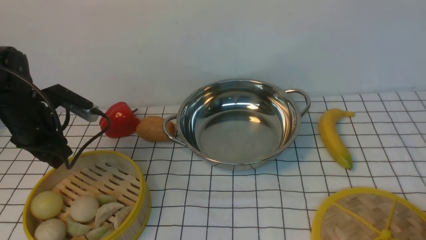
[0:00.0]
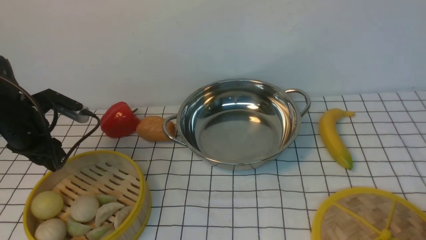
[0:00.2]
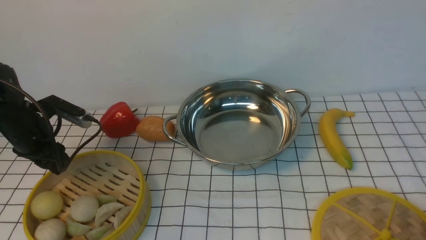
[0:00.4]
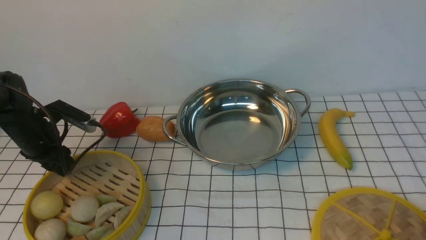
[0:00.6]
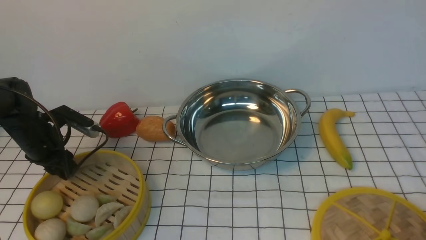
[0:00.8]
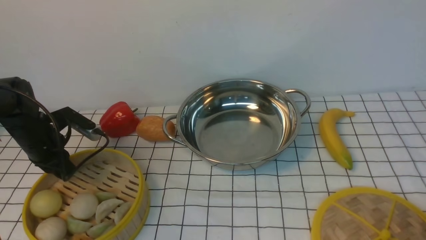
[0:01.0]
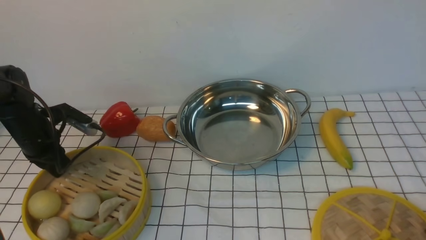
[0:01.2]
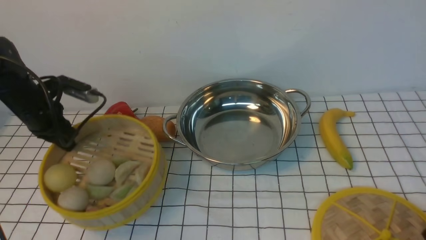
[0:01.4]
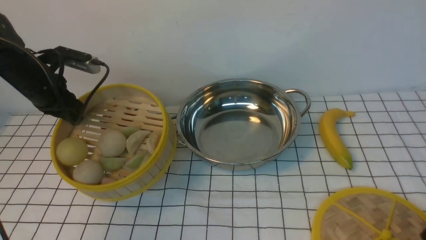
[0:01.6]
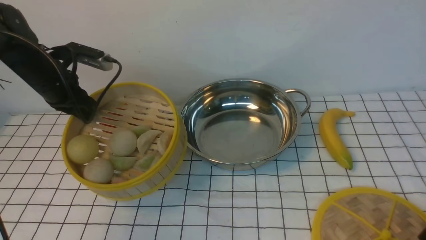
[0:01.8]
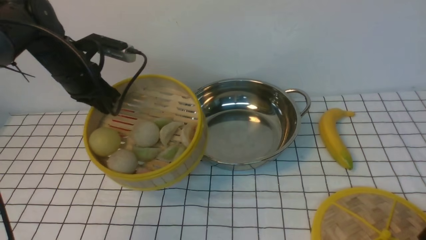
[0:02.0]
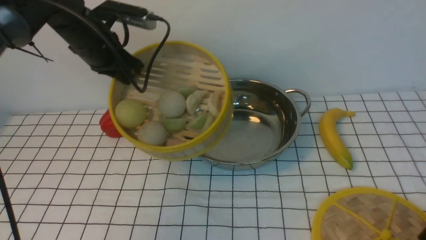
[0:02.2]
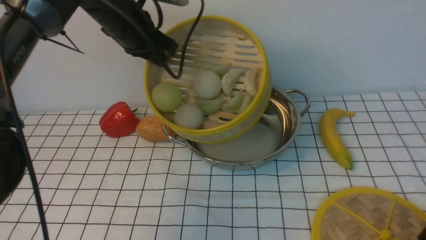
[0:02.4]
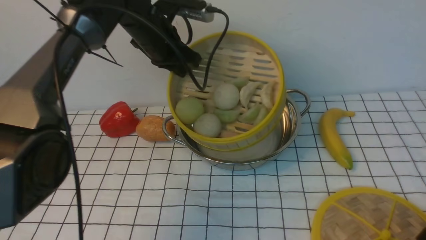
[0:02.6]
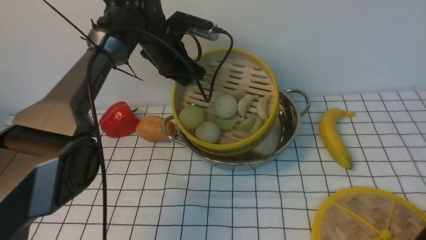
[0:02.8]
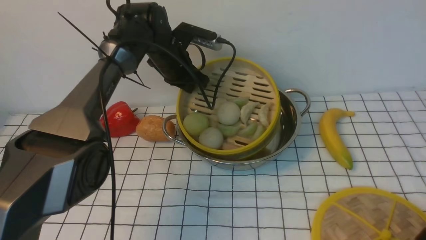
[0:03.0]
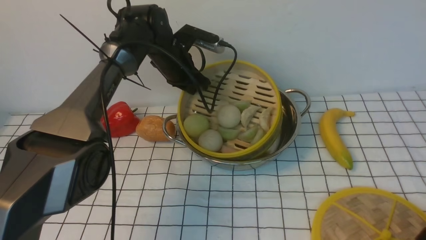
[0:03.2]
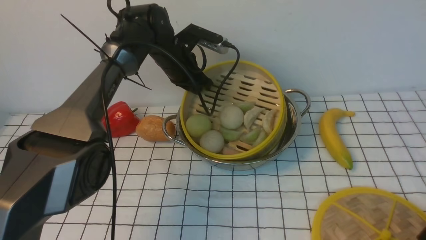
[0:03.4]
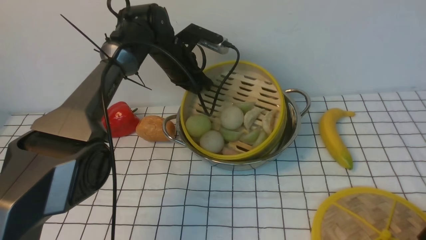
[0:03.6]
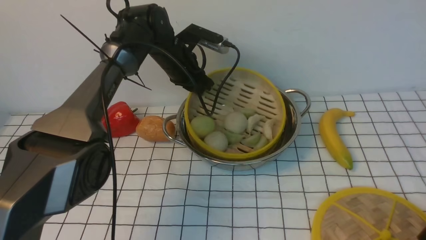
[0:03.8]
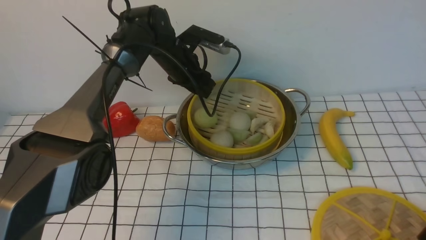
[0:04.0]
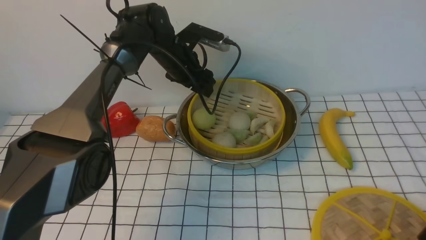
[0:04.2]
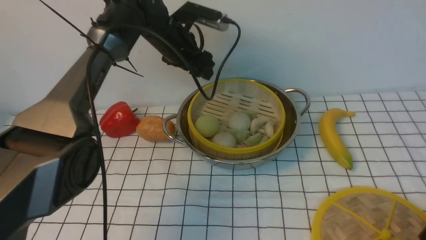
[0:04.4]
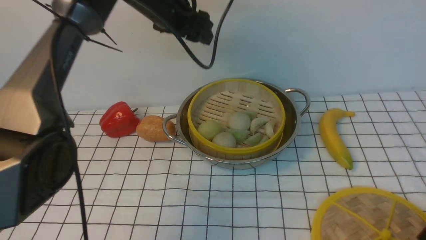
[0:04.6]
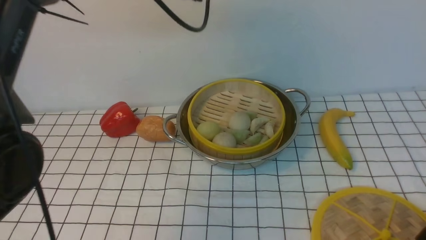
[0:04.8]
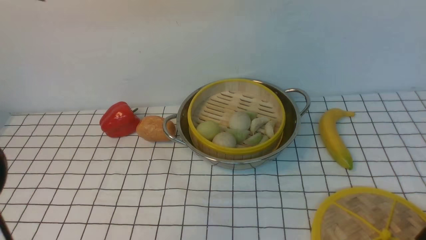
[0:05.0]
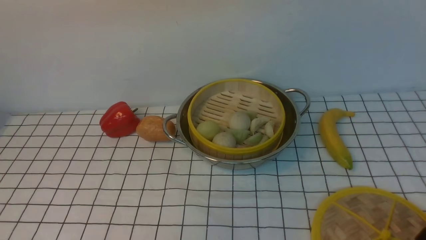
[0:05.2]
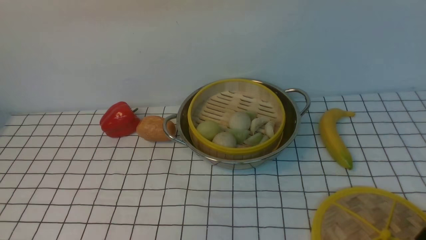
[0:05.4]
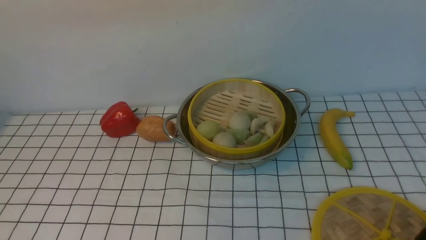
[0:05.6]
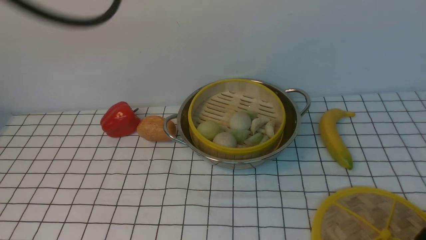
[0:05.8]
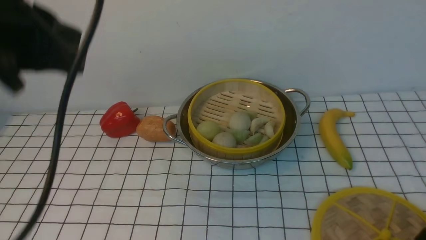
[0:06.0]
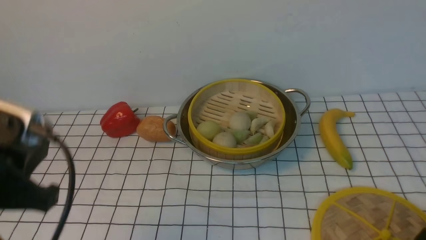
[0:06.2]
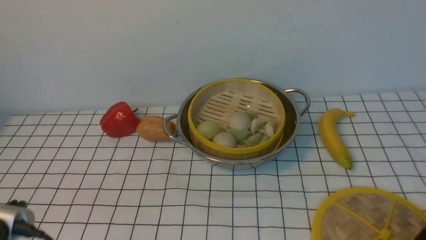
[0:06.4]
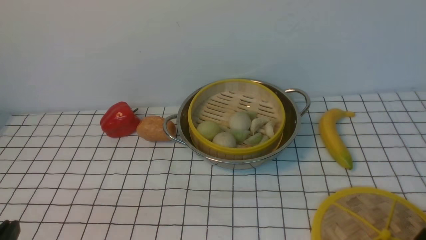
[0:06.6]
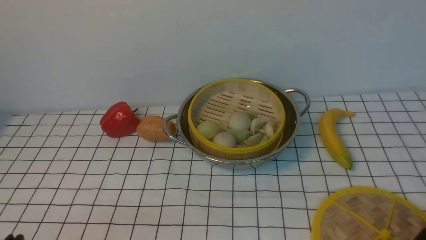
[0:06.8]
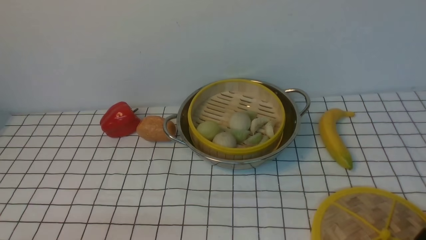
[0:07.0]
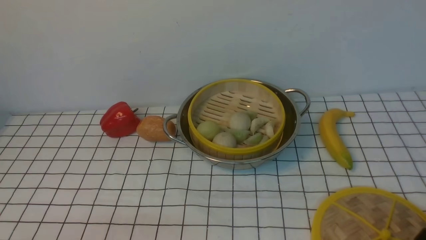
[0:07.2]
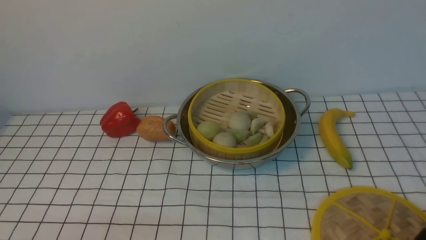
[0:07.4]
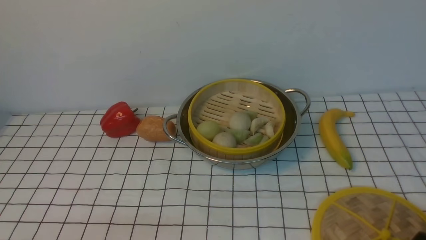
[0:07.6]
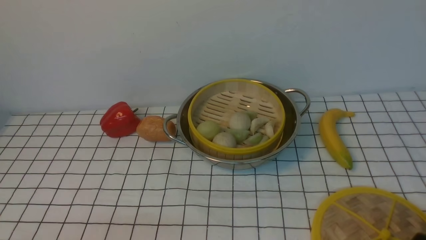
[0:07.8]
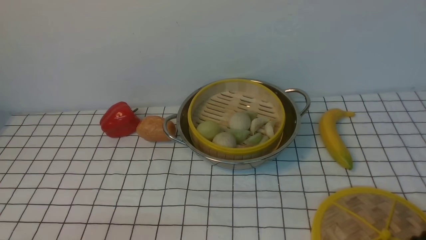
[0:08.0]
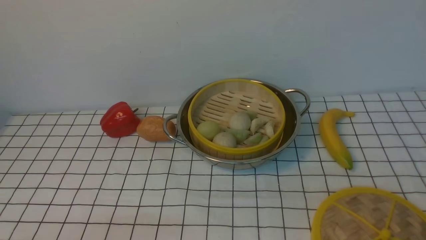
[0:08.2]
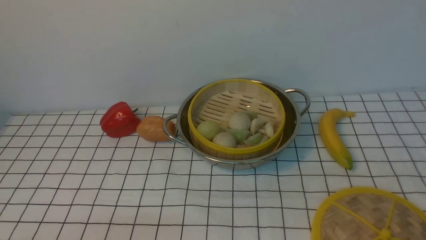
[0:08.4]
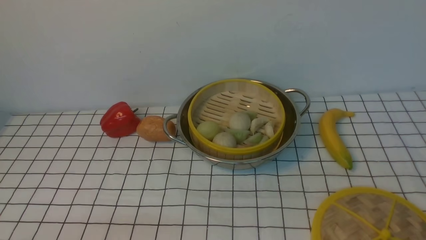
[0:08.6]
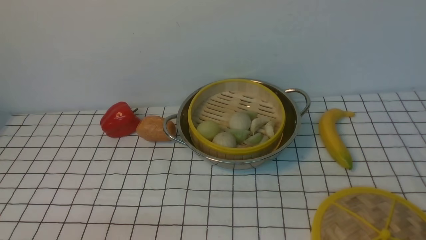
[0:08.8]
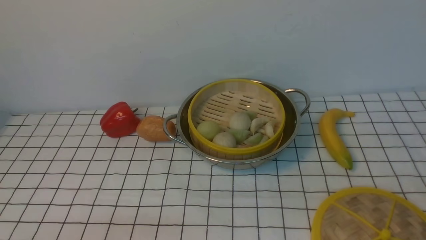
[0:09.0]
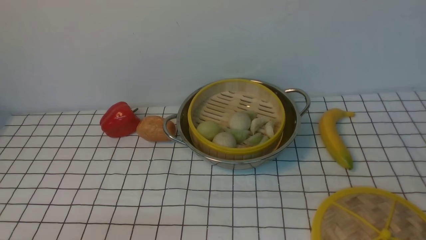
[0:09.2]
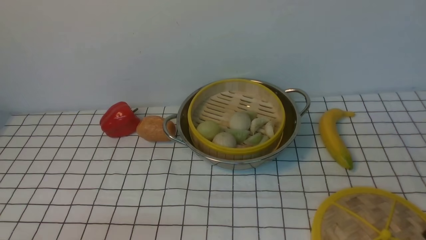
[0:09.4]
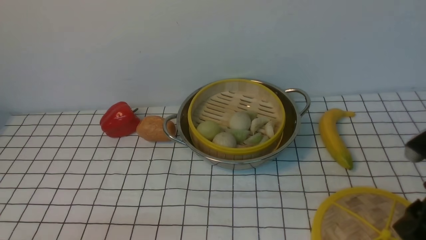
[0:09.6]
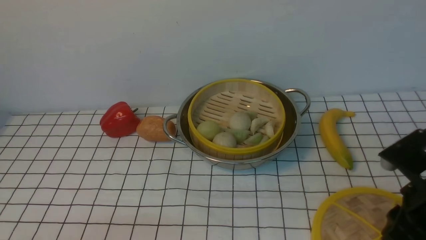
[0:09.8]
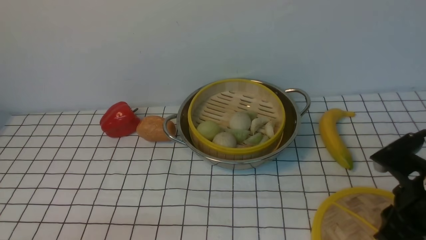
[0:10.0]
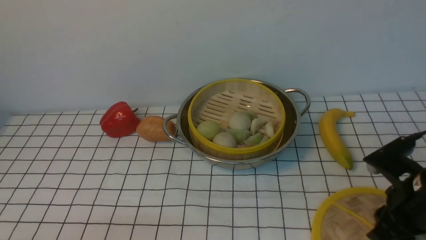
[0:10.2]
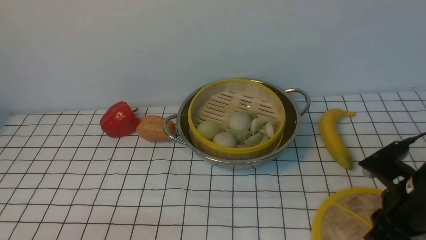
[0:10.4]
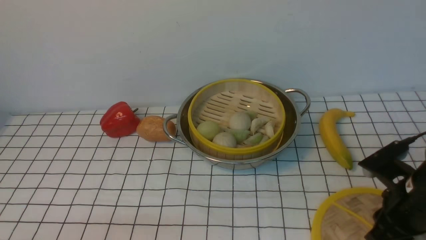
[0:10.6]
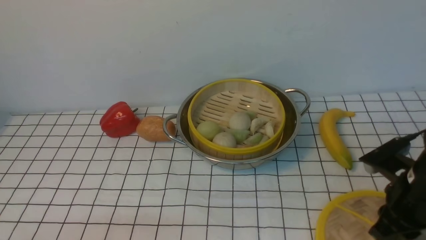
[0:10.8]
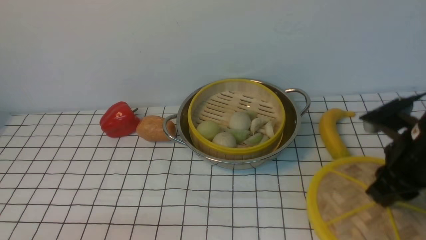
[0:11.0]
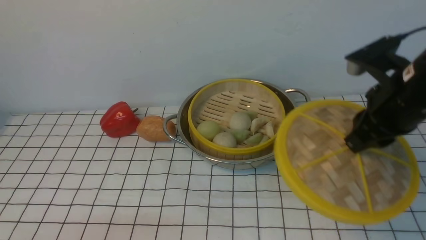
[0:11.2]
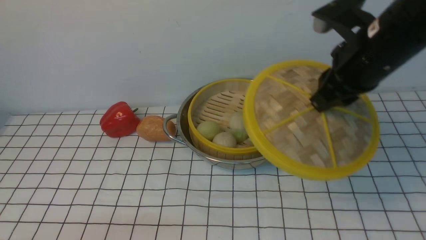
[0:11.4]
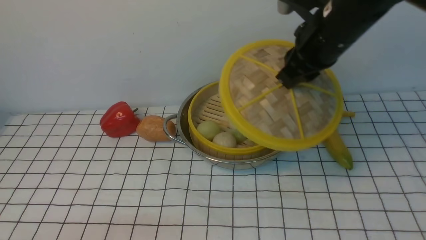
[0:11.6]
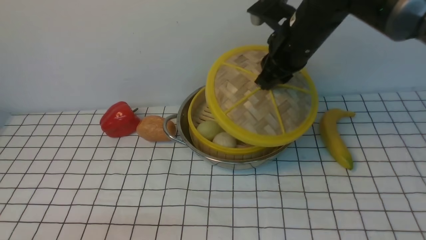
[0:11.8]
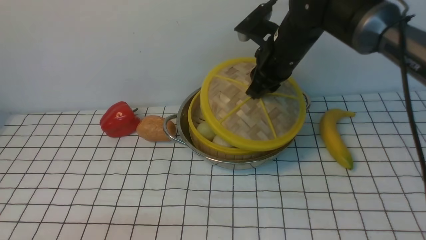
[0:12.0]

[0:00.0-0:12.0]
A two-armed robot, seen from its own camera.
Task of the whole recording: place the steamer in the pot on the white tablecloth, and put the lid on the steamer.
Step, 0:01.4 to 0:04.2: use the left arm to put the steamer into the iron steamer pot in the middle.
Step, 0:04.4 to 0:10.8: use the right arm to lift the lid of the steamer.
0:00.0 to 0:01.6: The left gripper moves forward, roughly 5 cm, reaches some 5 cm downward, then returns, and closes up.
0:01.6 to 0:03.0: The left gripper is displaced to the right and forward by some 25 cm.
0:03.0 to 0:04.4: The left gripper shifts approximately 5 cm upward, and opens up.
0:04.4 to 0:06.0: The left gripper moves backward and upward, about 30 cm, and closes up.
0:06.0 to 0:07.6: The left gripper heads downward and backward, covering about 30 cm.
0:09.0 to 0:10.4: The right gripper moves forward and downward, roughly 25 cm.
0:10.4 to 0:12.0: The right gripper moves forward, to the left and upward, about 30 cm.

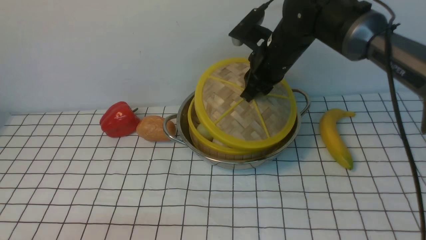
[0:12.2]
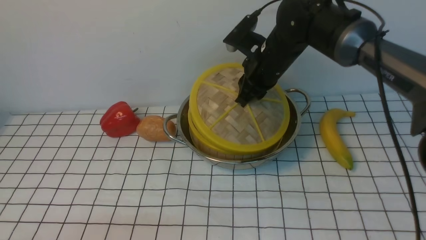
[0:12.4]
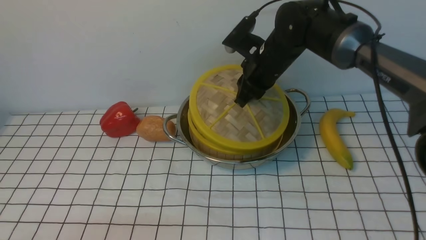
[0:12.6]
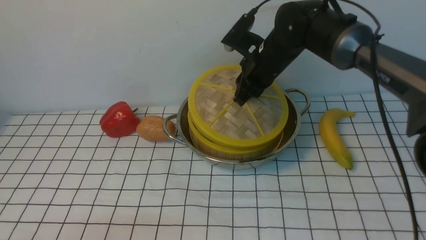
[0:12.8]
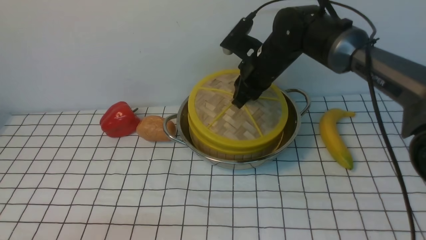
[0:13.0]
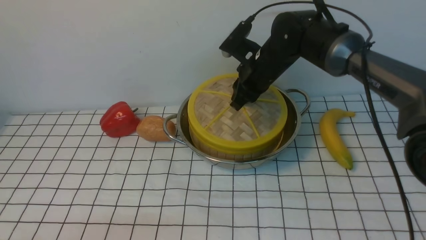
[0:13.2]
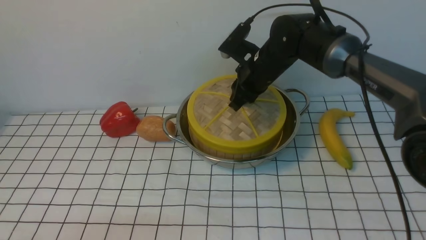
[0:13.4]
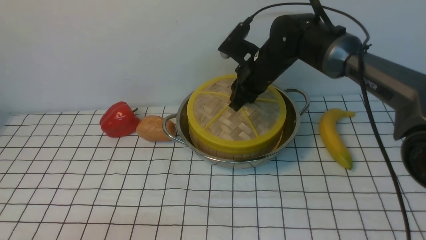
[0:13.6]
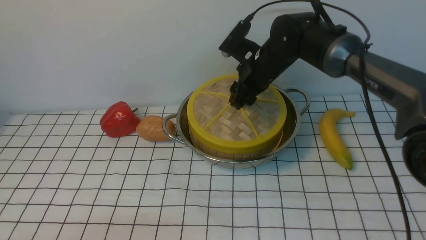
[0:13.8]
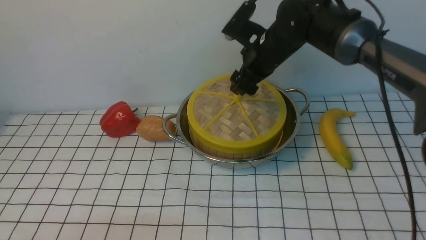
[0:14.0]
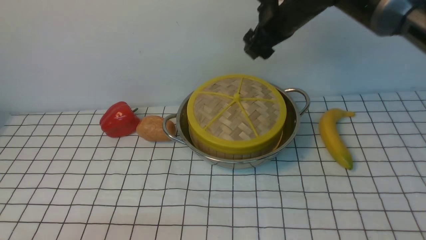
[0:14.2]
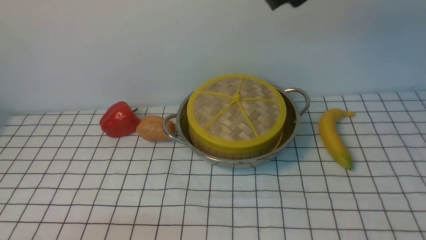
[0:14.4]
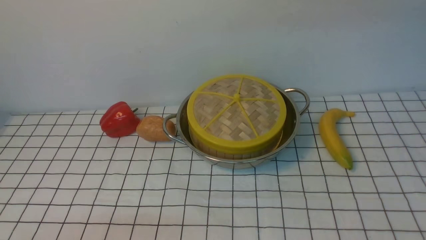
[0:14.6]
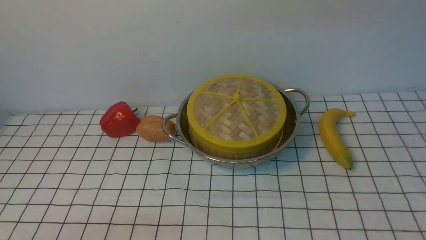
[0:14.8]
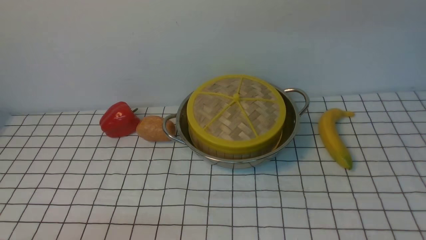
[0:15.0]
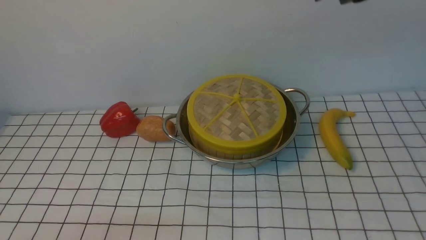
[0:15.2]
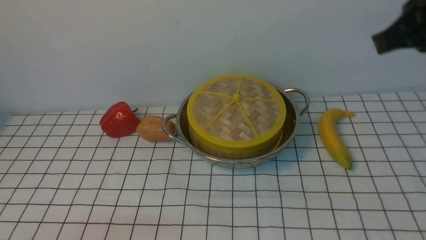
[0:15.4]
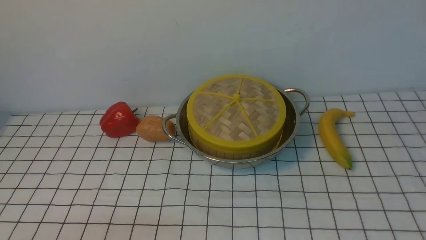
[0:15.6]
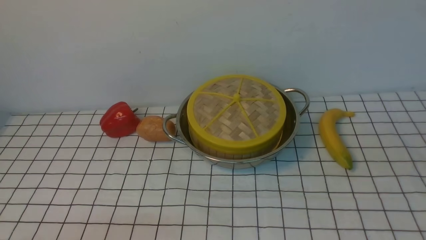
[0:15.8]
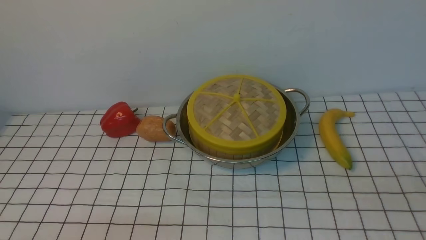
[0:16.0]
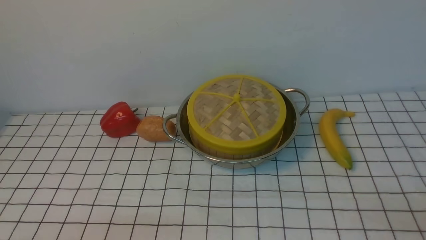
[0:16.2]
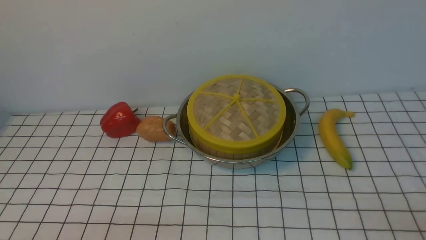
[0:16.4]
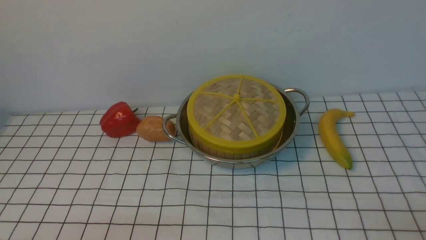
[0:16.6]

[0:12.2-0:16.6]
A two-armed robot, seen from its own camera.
Task of the whole recording: place the steamer in the pot on the white tablecloth, and put the lid on the steamer.
Step, 0:12.2 to 0:14.0: use the right arm to place the steamer lid on the steamer.
0:12.2 to 0:13.6: The grippers make only small movements.
0:13.6 to 0:15.2: The right gripper travels upward, backward and to the right by approximately 30 cm, and closes.
